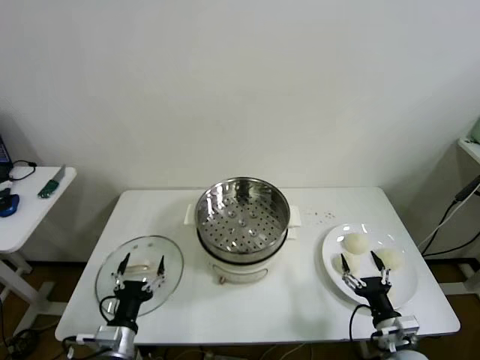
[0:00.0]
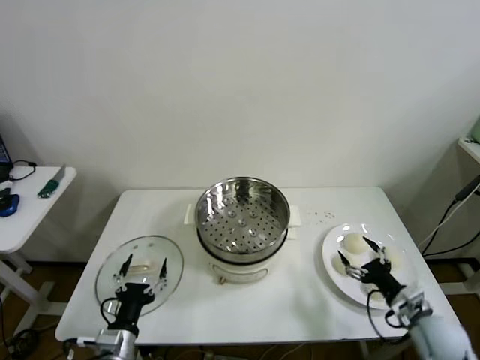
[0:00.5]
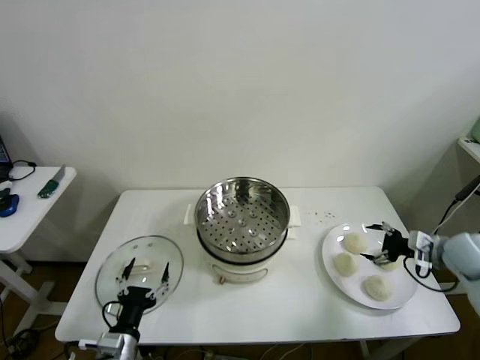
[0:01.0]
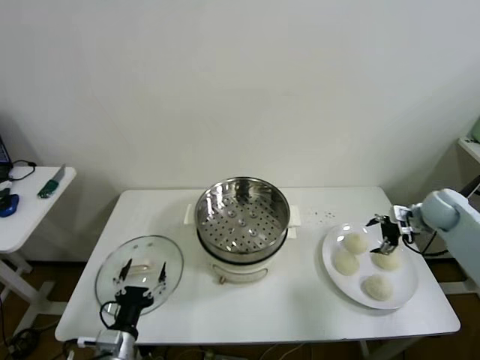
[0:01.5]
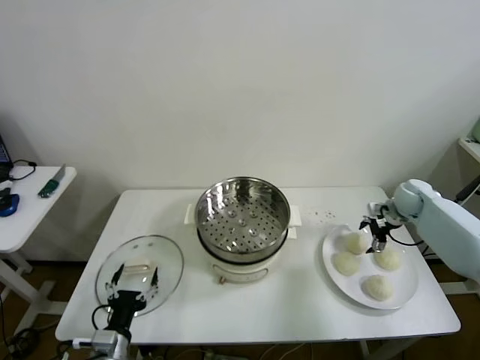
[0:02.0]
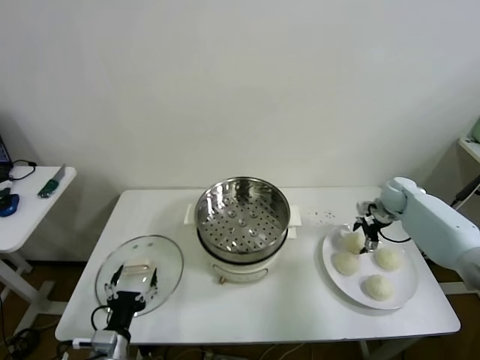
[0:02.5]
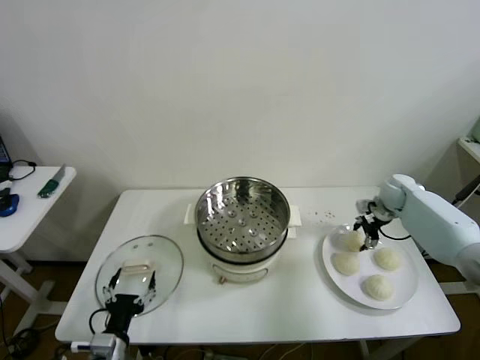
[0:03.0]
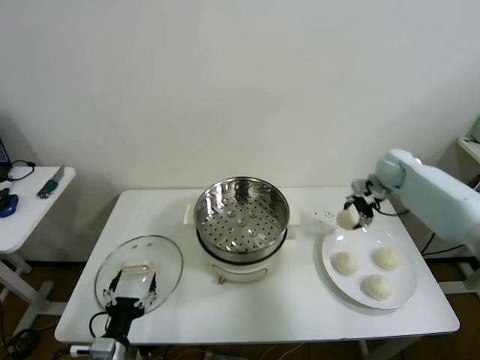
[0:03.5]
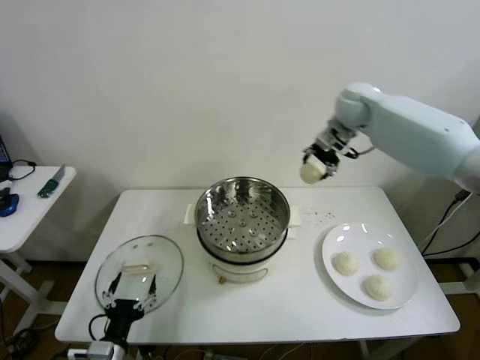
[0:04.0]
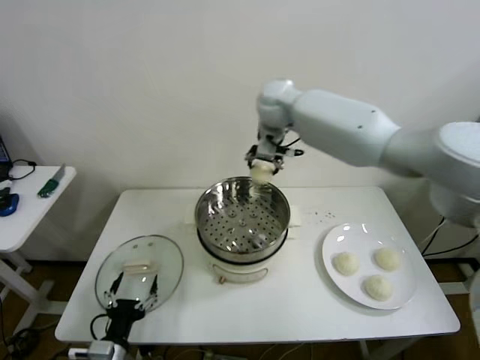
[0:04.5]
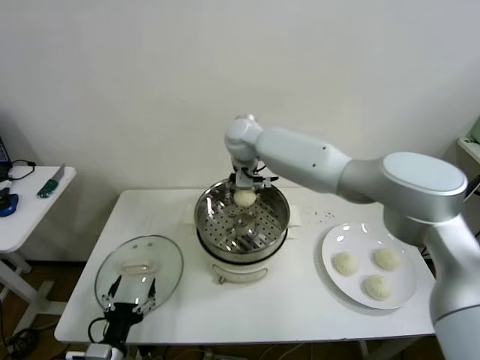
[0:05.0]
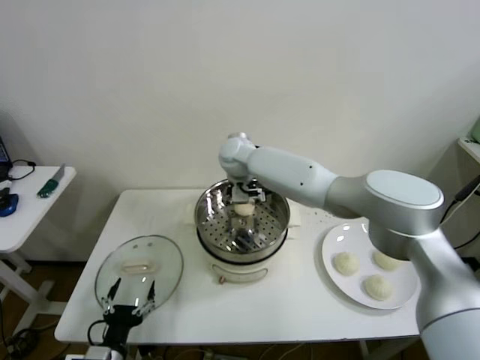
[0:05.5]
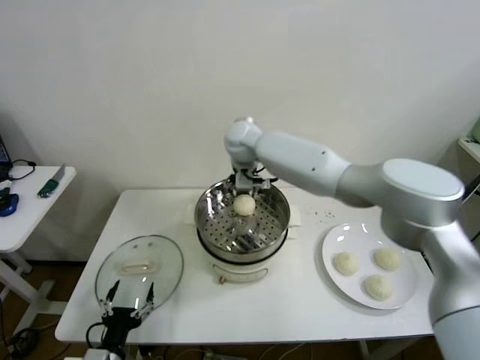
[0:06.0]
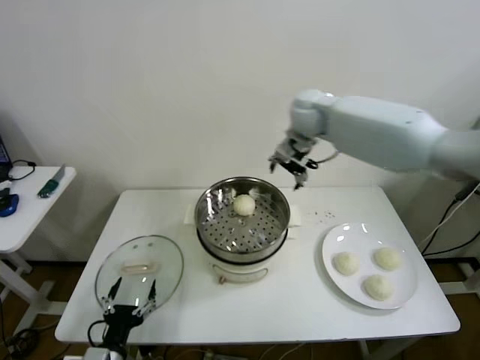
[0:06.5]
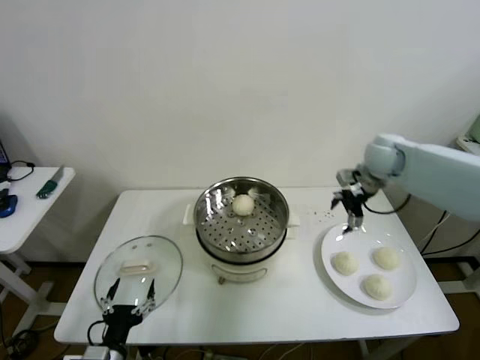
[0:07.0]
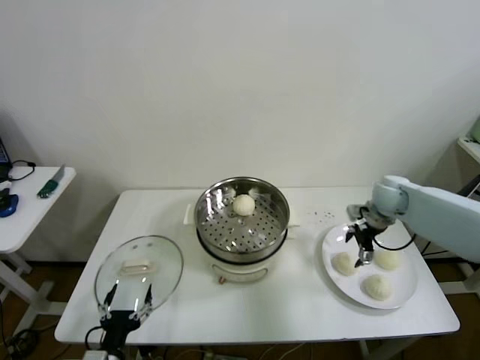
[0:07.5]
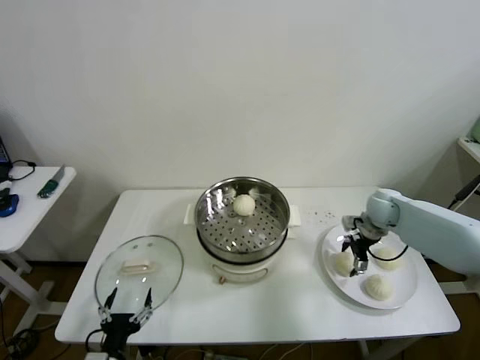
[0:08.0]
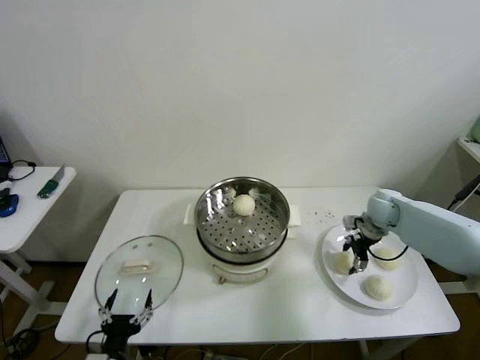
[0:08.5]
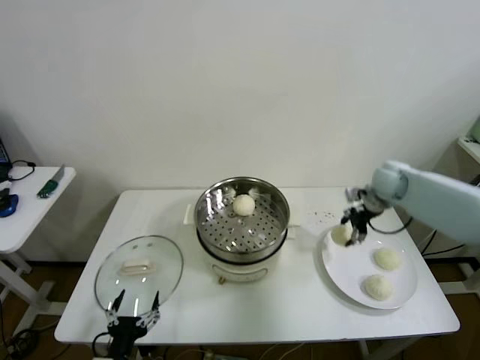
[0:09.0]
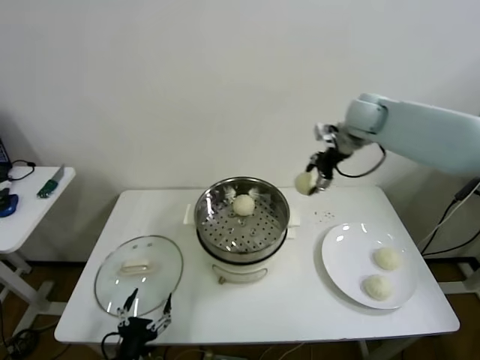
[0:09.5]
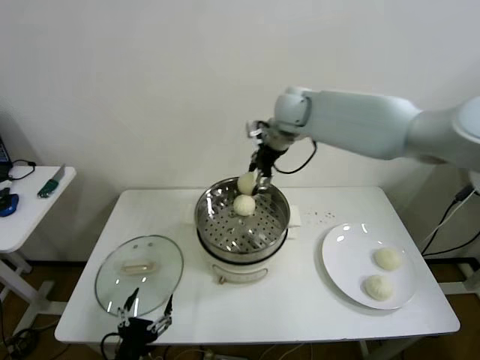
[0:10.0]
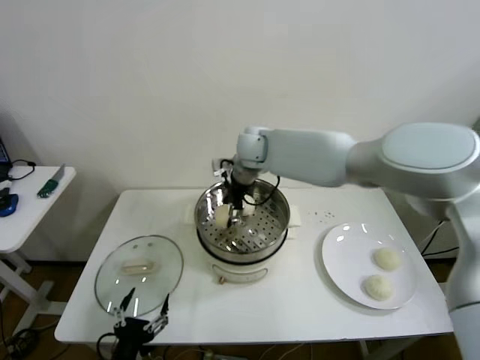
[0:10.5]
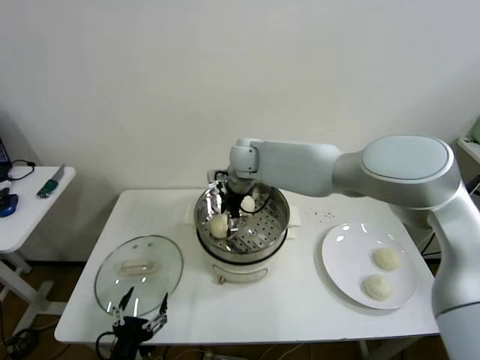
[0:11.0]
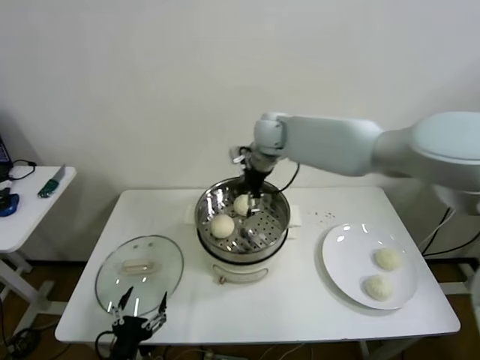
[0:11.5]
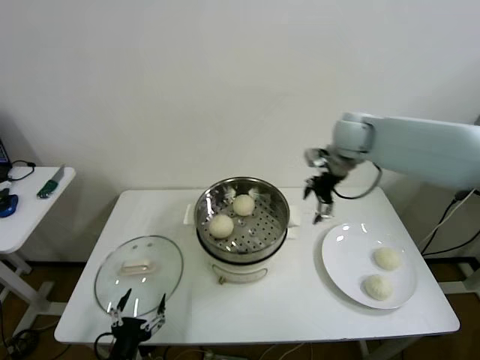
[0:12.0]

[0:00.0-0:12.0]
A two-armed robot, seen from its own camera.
Step, 0:00.0 to 0:02.5: Grasp the baozi in the plate with right gripper.
Step, 0:03.0 to 0:05.5: Place the baozi on the steamer with right gripper.
Step, 0:06.0 to 0:08.0: Grasp the baozi in the plate with right gripper.
Step, 0:08.5 to 0:11.0: Place the baozi on the steamer with right gripper.
0:02.0 to 0:04.0: The right gripper shifts some 35 cm upward and to the left, and closes.
0:04.0 to 0:06.0: The right gripper travels to the left by some 20 cm, and opens.
0:06.0 to 0:08.0: The right gripper heads to the right and downward, covering approximately 40 cm.
0:08.0 to 0:10.0: The right gripper heads to the left and upward, covering approximately 35 cm, and closes its fingers.
0:10.0 to 0:12.0: The right gripper travels to the right by roughly 15 cm, and opens its fingers.

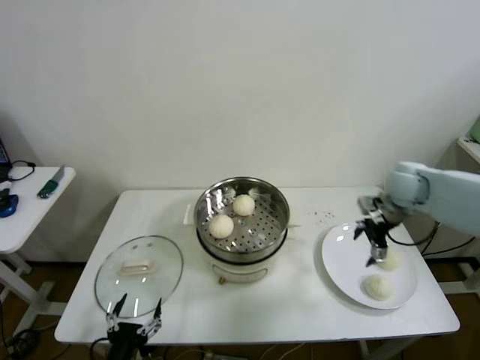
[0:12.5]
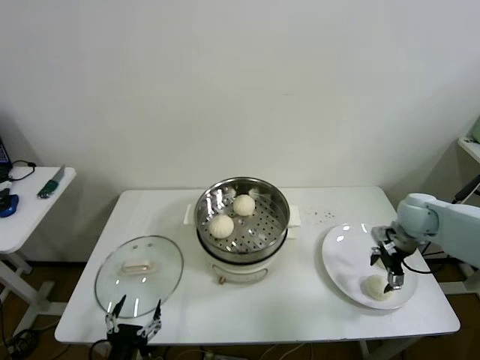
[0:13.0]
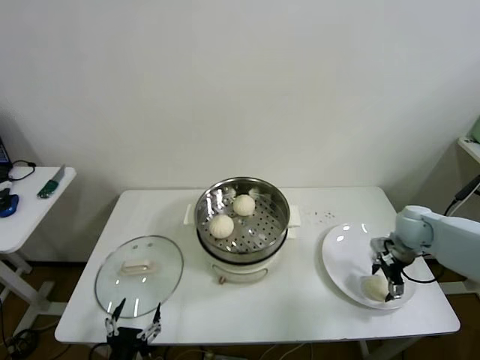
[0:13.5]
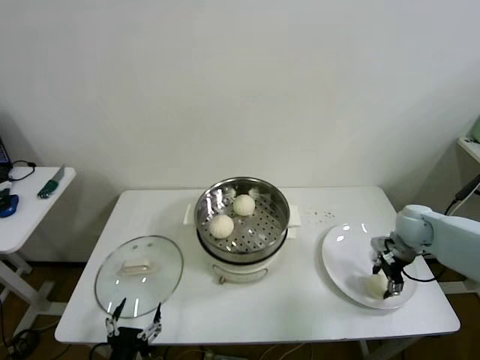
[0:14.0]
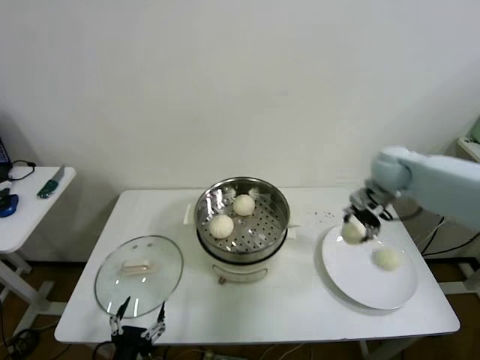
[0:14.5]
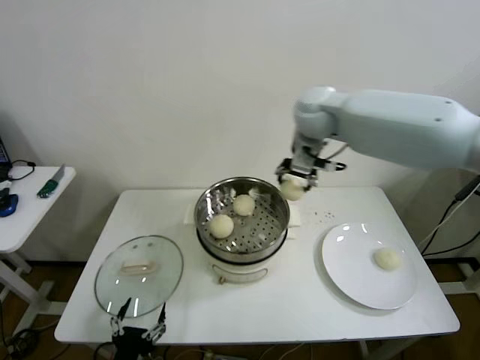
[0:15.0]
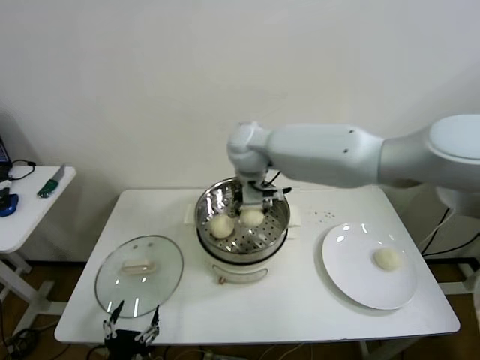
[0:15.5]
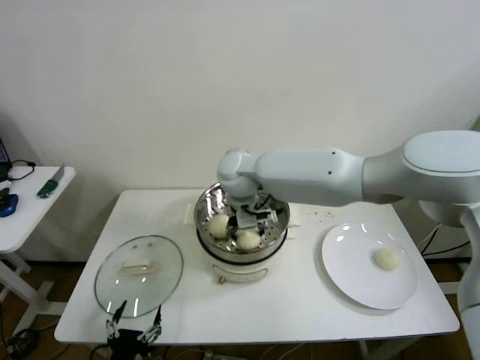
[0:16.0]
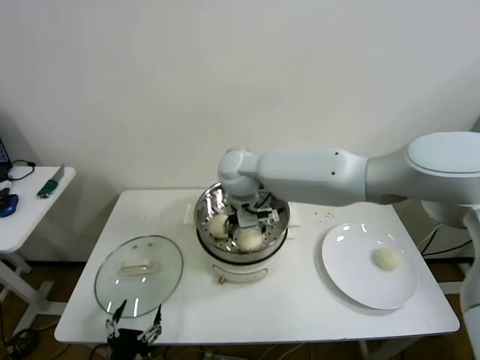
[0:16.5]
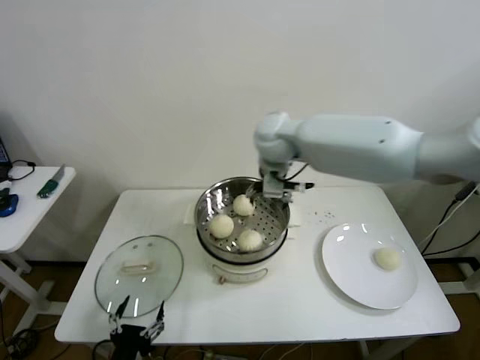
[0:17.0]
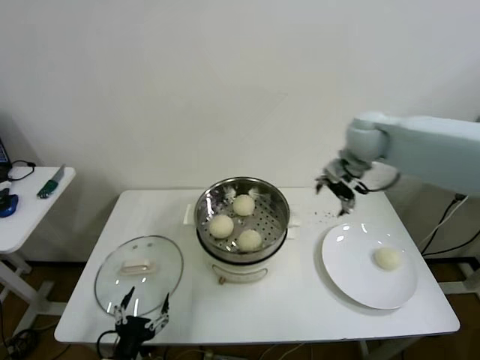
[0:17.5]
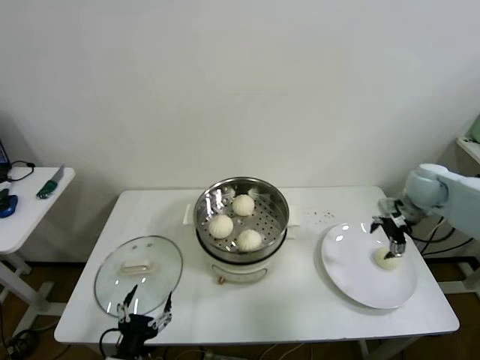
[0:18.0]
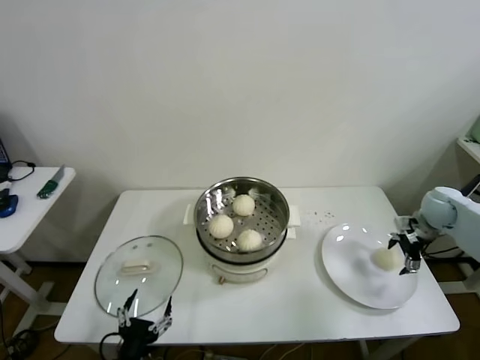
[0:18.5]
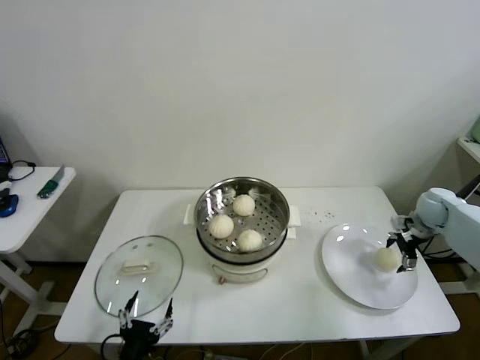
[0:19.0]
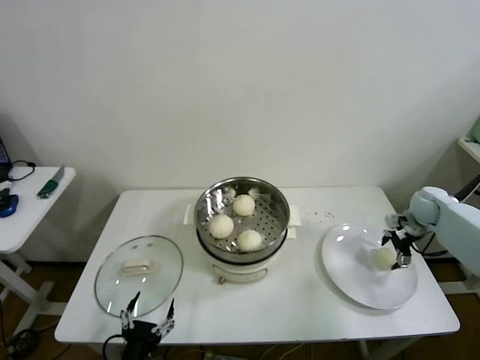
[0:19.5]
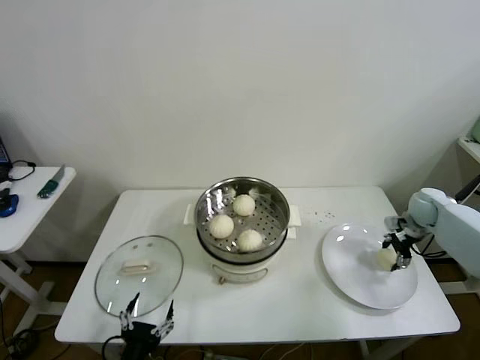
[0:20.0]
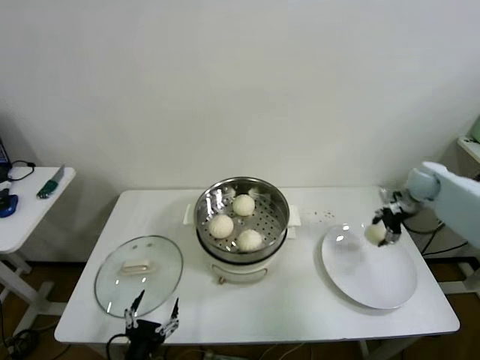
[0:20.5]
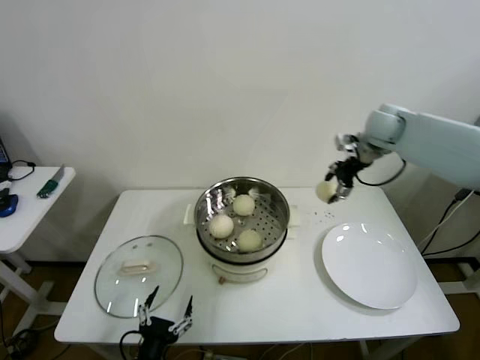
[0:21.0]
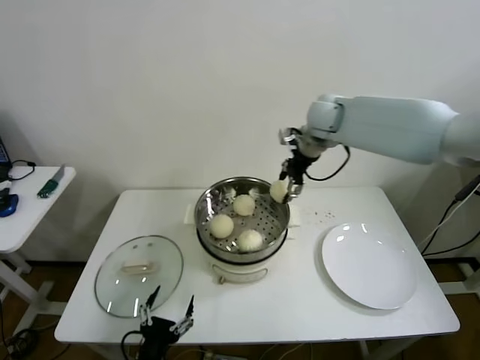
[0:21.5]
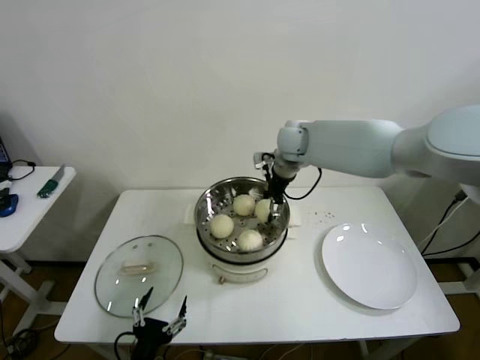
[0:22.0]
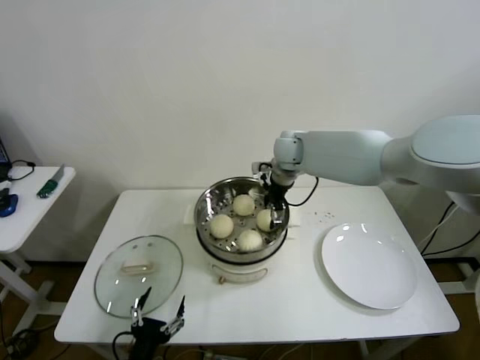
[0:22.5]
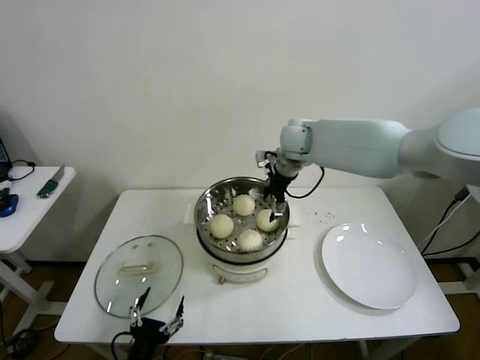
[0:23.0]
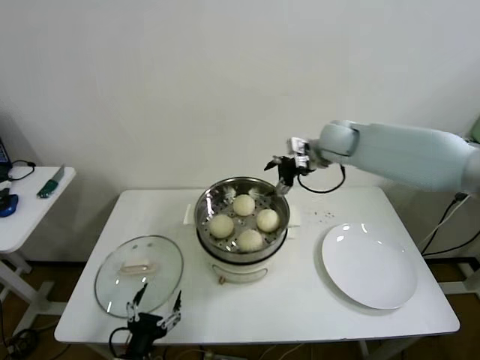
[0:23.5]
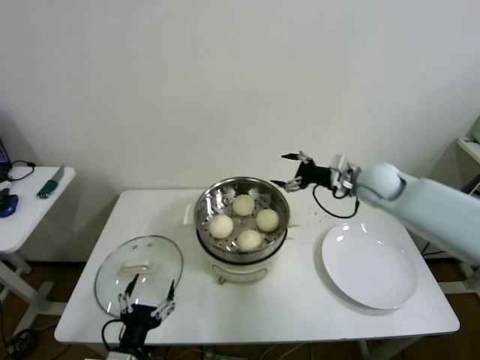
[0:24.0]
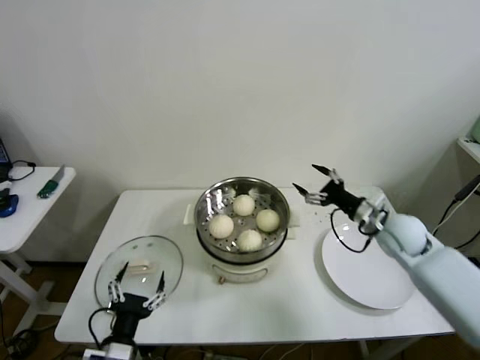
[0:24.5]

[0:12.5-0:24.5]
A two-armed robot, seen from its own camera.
Step, 0:14.0 to 0:16.0: Place the baozi on the steamer with right gripper.
Step, 0:16.5 to 0:19.5: Grasp the baozi in the plate with right gripper.
Step, 0:20.0 to 0:22.0: Place the baozi on the steamer with right gripper.
0:12.5 to 0:14.5: The right gripper travels to the left by roughly 5 cm, travels downward and back again, approximately 10 cm each way, and closes.
0:14.5 to 0:16.5: The right gripper shifts roughly 35 cm to the left, and opens its fingers.
0:16.5 to 0:18.5: The right gripper heads to the right, covering some 50 cm.
0:18.5 to 0:20.5: The right gripper moves forward, some 5 cm, and closes.
0:20.5 to 0:22.5: The right gripper is displaced to the left by about 35 cm, and opens its fingers.
0:22.5 to 0:24.5: The right gripper moves to the right, backward and downward, about 30 cm.

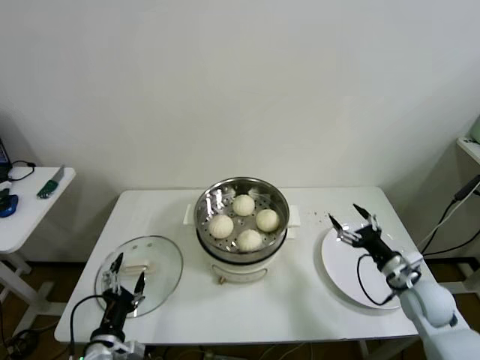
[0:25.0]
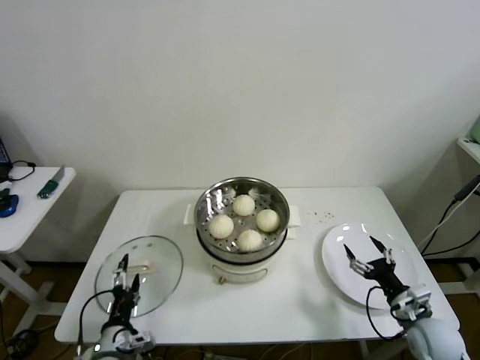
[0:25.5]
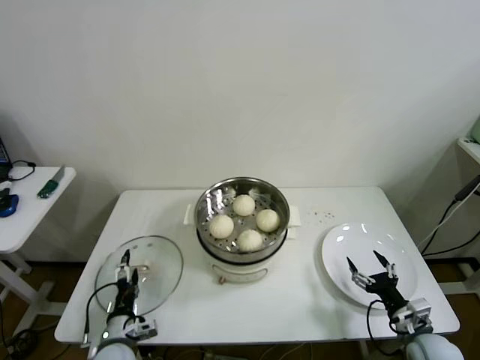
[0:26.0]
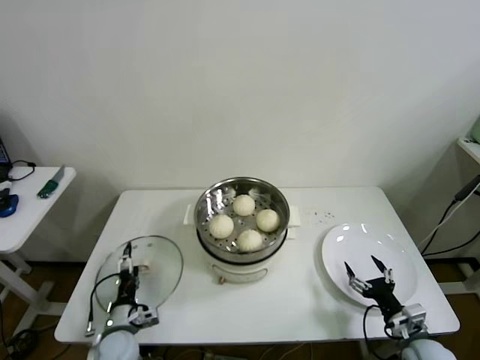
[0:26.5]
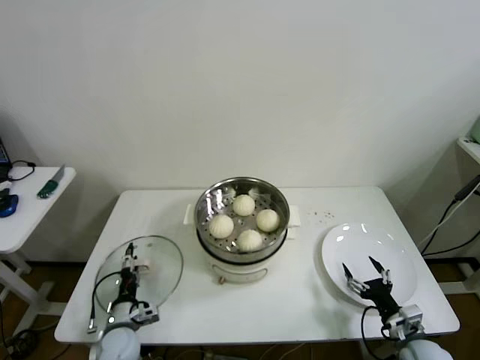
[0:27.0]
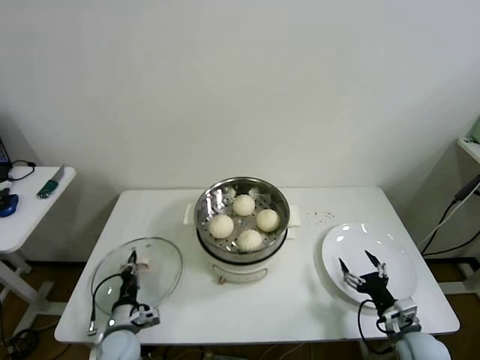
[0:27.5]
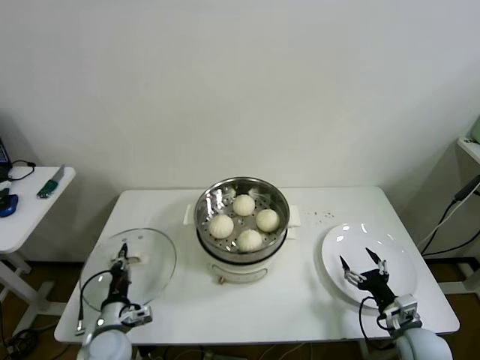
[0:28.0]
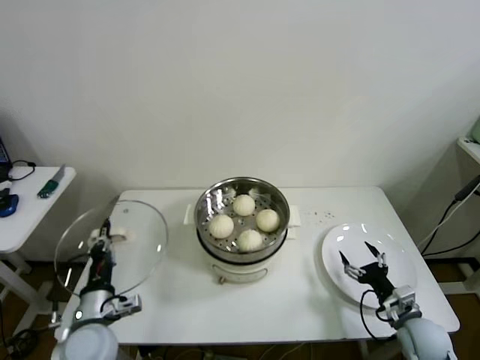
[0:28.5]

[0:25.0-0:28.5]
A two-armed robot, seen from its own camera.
Step, 0:25.0 to 0:27.5: Grasp the pot lid with left gripper.
0:25.0 to 0:27.0: The left gripper shifts some 15 cm downward and forward; the right gripper goes about 15 cm backward and downward.
0:27.0 to 0:28.5: The left gripper travels upward by approximately 15 cm, and closes its fingers.
